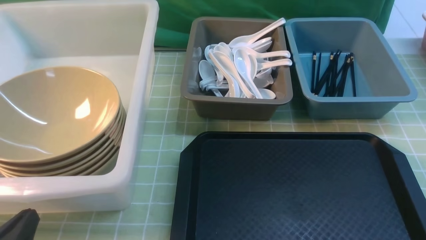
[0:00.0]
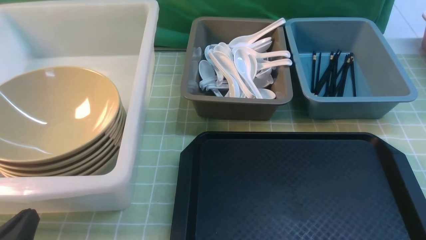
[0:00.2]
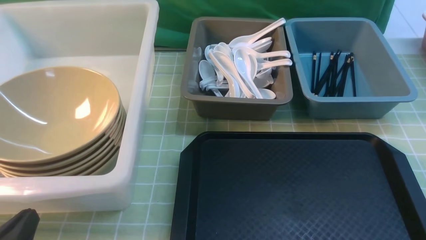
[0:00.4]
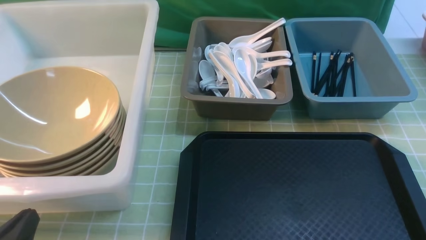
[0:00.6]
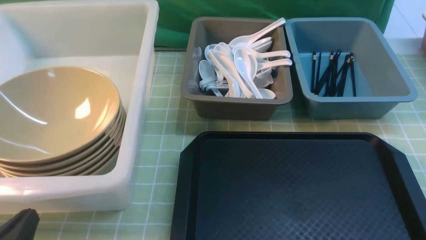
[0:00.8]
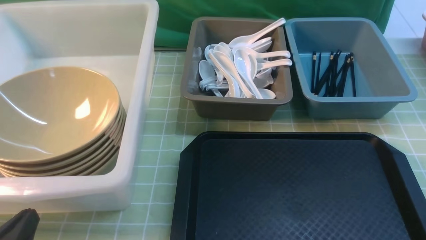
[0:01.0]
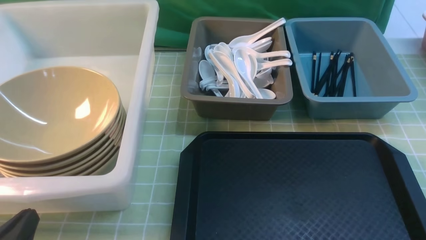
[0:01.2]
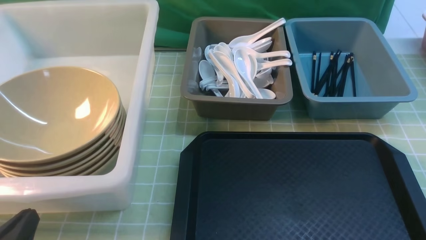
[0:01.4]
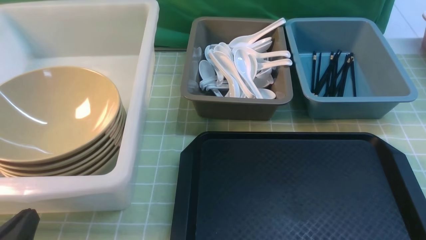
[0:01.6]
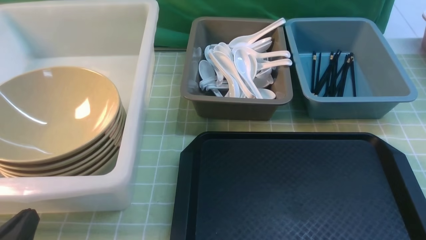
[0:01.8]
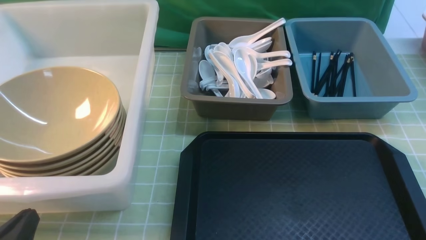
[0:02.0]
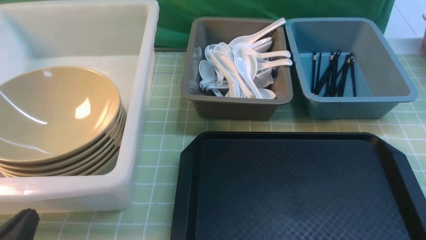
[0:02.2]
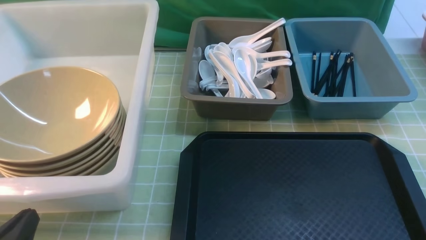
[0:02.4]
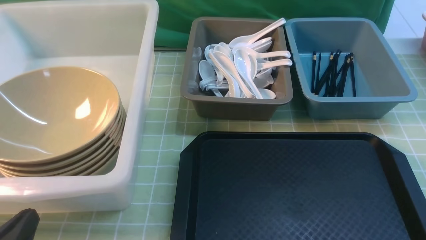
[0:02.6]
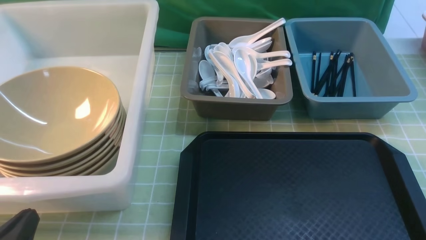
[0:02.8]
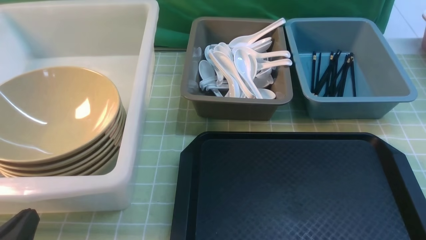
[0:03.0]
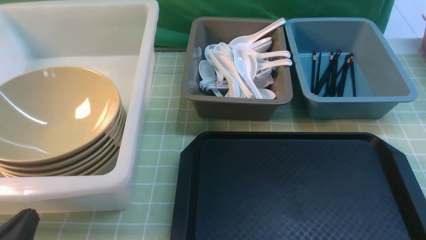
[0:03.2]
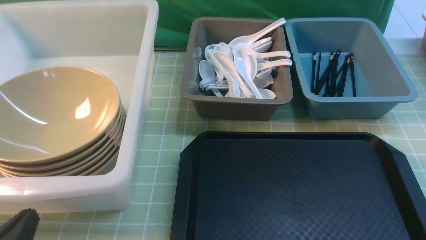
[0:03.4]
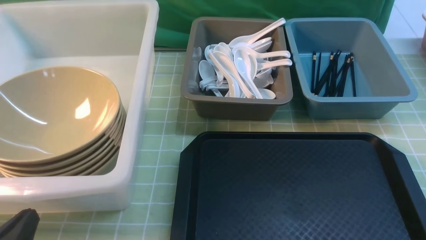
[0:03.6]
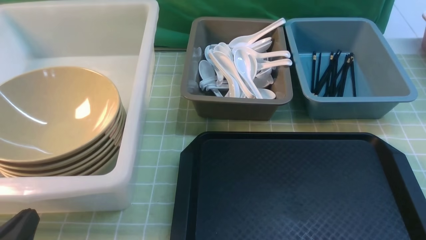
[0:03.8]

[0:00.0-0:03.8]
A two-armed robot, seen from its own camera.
Task of the whole recording: on green table put chopsticks spoon bowls plates into blue grey white boxes.
0:02.6 to 0:03.8: Both grippers stay about where they are.
